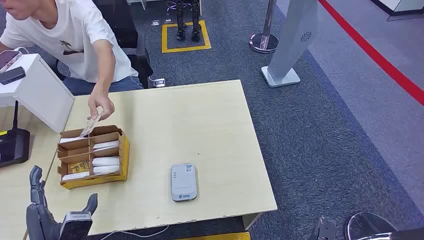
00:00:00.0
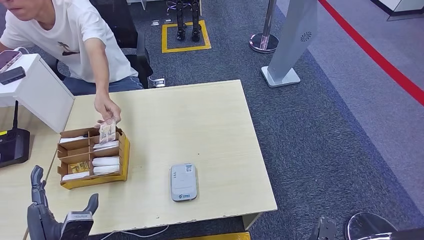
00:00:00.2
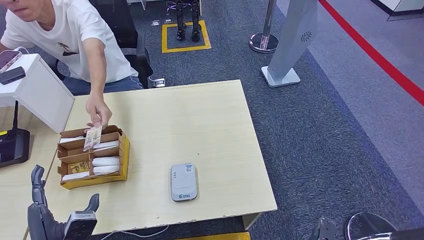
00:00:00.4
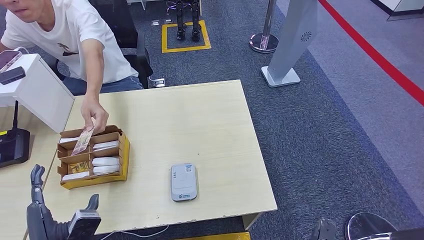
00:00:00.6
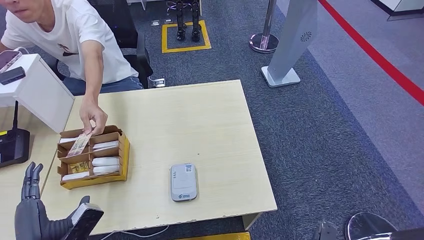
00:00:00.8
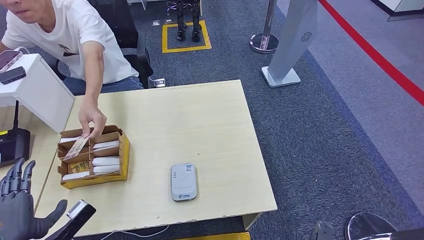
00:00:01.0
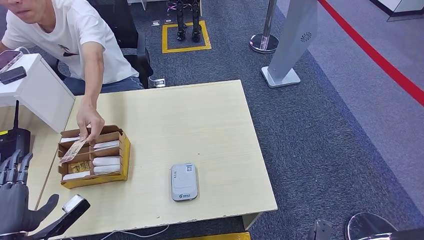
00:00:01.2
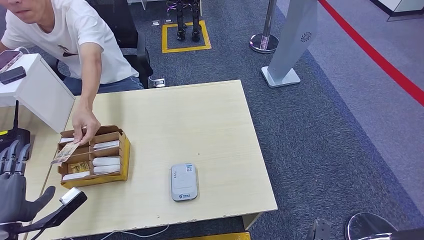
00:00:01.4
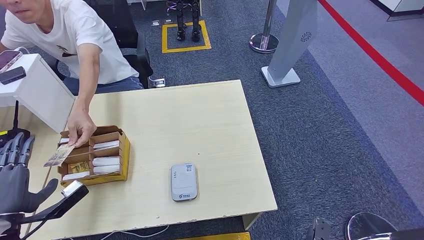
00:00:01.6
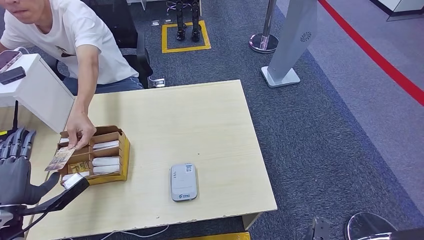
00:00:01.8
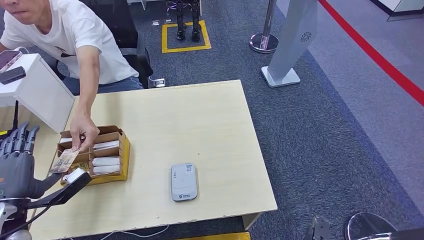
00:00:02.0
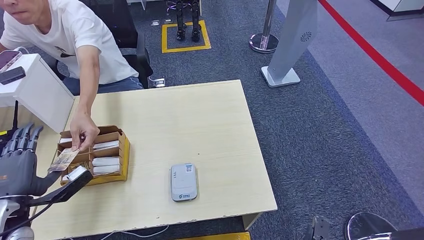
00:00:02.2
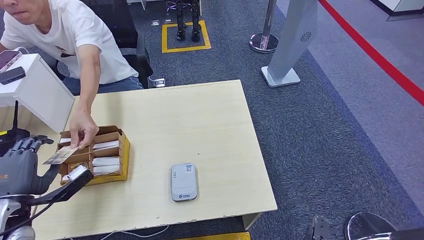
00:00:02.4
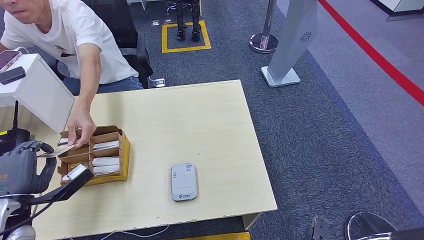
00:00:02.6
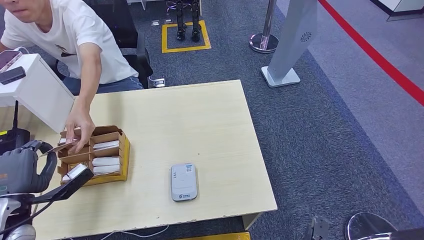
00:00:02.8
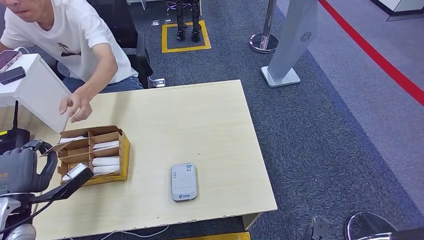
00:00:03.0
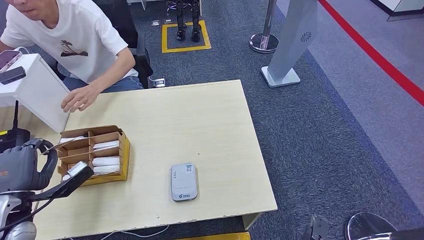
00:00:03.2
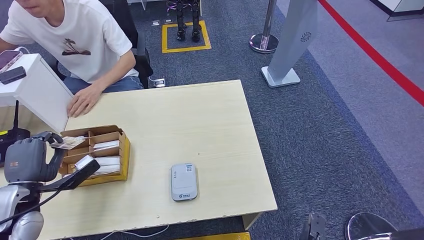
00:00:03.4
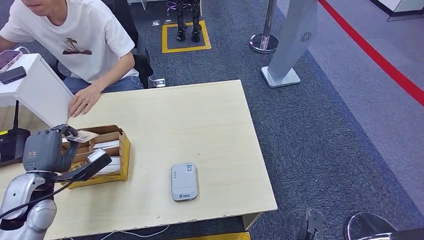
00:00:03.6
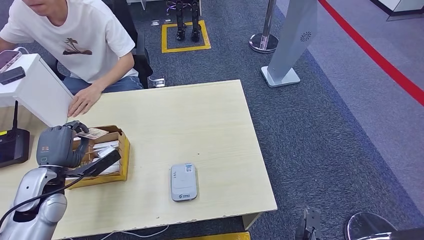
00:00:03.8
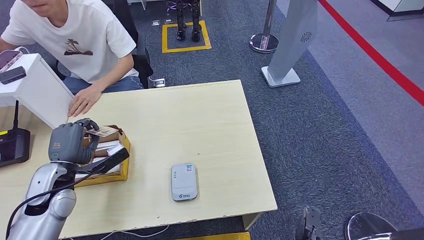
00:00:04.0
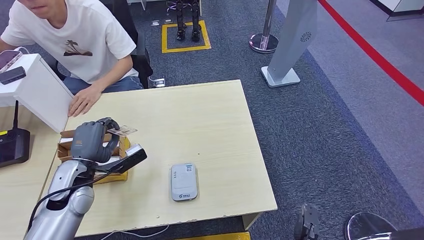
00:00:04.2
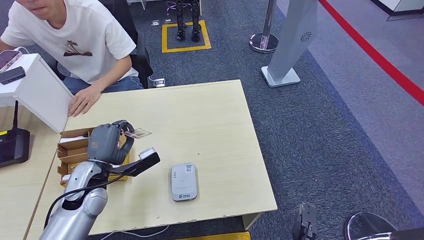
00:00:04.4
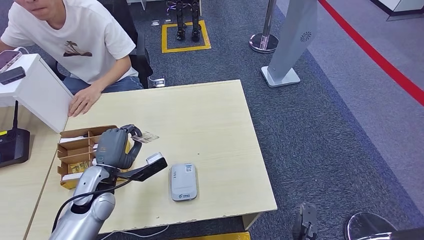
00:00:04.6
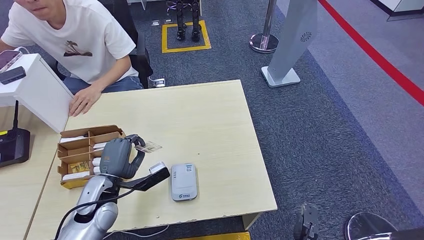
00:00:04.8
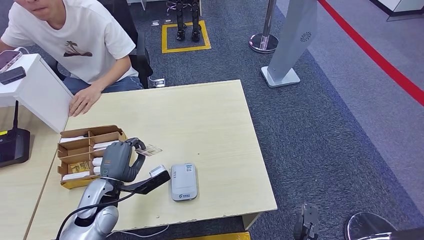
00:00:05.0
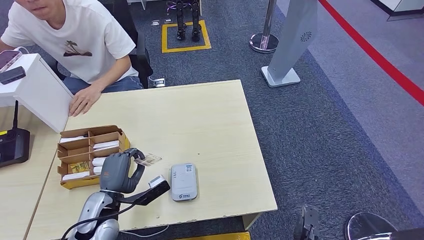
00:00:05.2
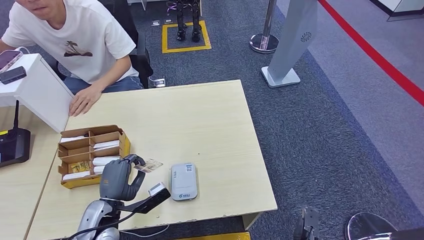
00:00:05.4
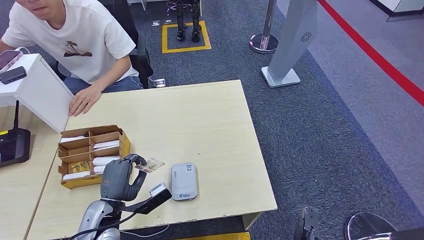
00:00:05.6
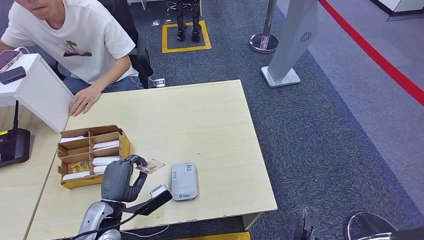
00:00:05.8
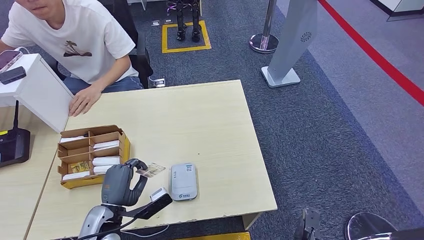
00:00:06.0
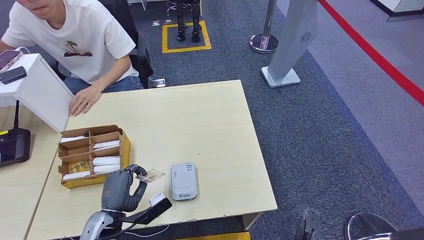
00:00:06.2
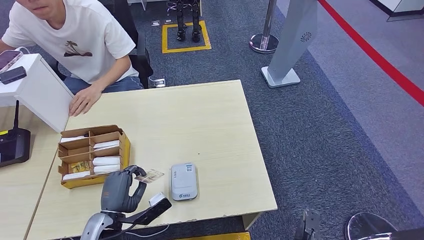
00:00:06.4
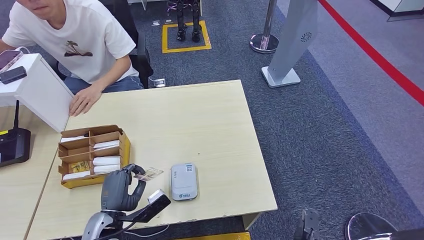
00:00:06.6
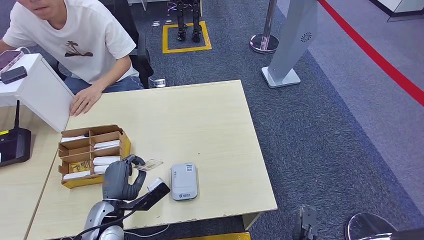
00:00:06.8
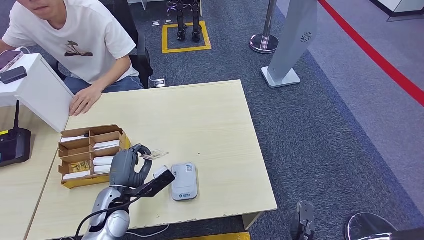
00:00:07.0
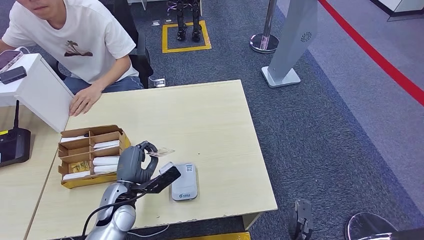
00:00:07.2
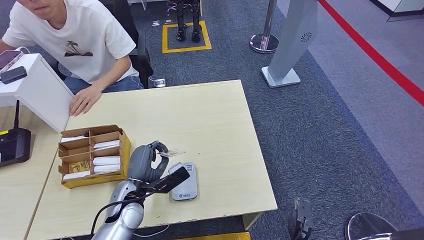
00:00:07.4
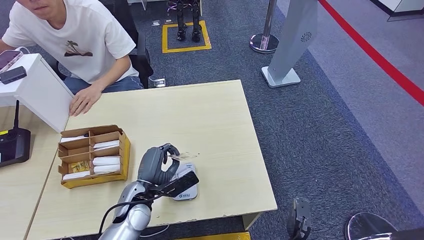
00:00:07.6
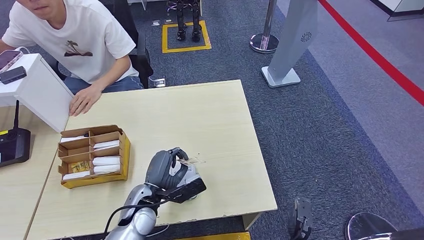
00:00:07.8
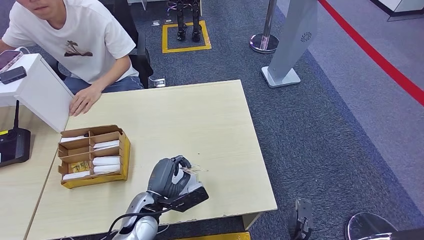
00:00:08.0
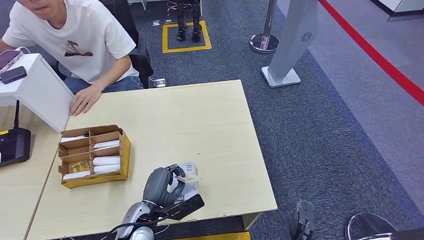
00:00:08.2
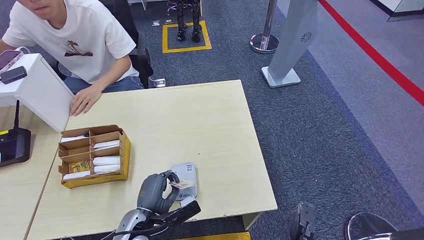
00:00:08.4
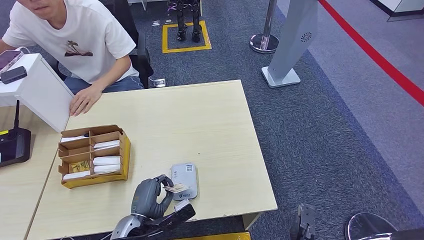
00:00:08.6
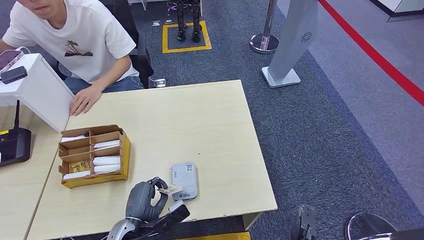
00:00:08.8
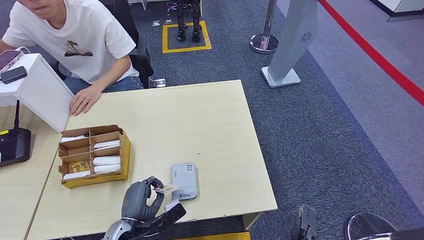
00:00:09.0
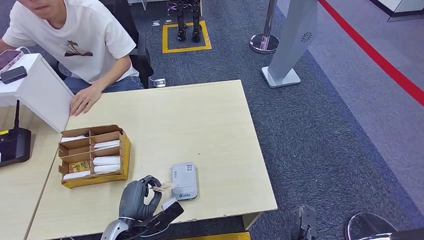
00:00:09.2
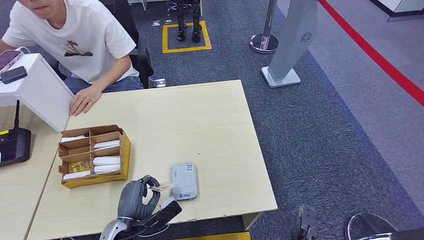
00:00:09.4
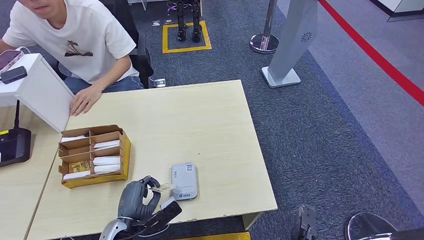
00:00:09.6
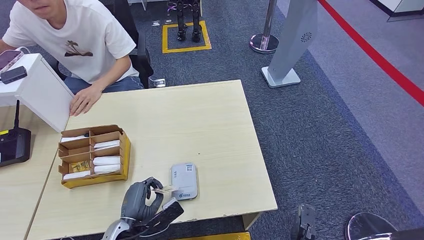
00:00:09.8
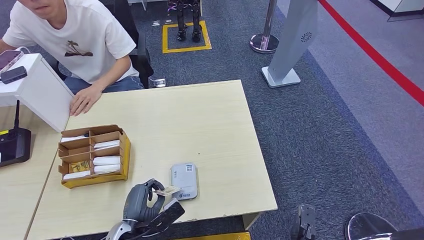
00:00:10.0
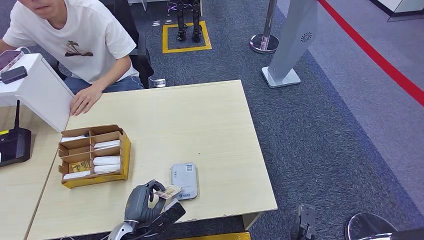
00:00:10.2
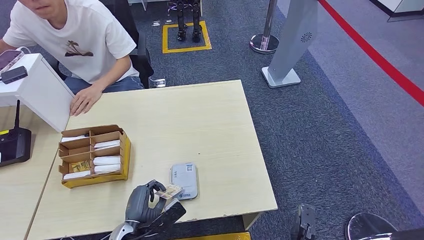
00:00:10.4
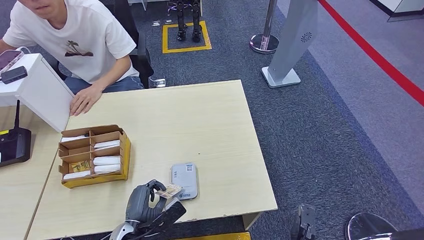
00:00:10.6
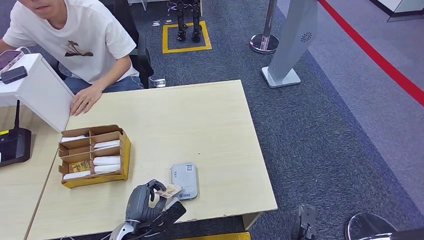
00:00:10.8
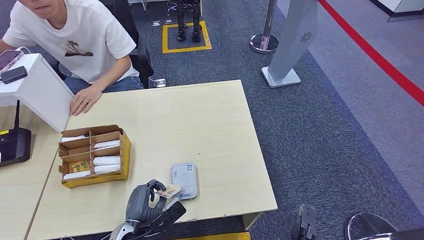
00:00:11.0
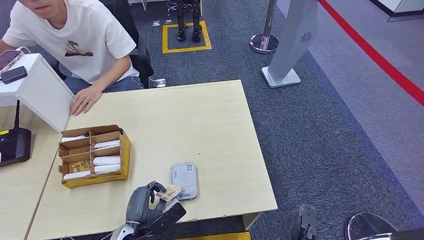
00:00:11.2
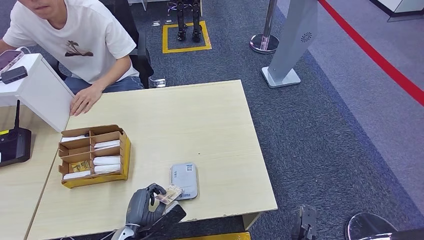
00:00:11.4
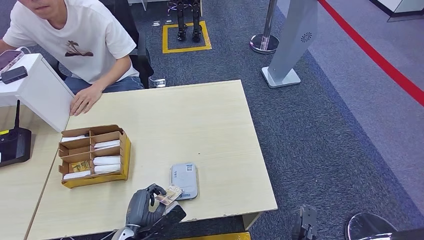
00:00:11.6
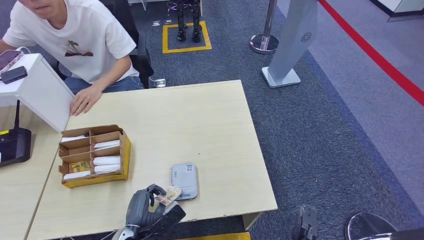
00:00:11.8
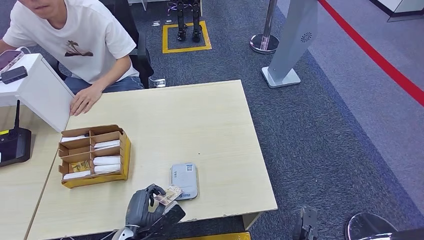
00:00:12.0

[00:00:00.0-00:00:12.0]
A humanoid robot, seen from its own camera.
Step, 00:00:00.0 to 00:00:03.8: Take the ID card from the person's hand.
Step, 00:00:04.2 to 00:00:10.4: Place the ID card on the card reader.
00:00:01.6 to 00:00:03.0: The hands make only small movements.
00:00:03.0 to 00:00:04.4: The left hand heads to the right and forward, covering about 15 cm.
00:00:04.4 to 00:00:06.0: The left hand shifts roughly 10 cm backward and downward.
00:00:06.0 to 00:00:07.6: The left hand heads to the right and forward, covering about 10 cm.
00:00:07.6 to 00:00:09.0: The left hand is displaced backward by approximately 10 cm.
00:00:09.0 to 00:00:10.4: The hands make only small movements.
00:00:10.4 to 00:00:12.0: Neither hand changes place.

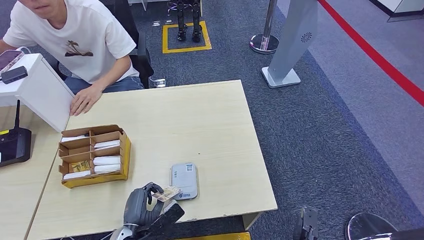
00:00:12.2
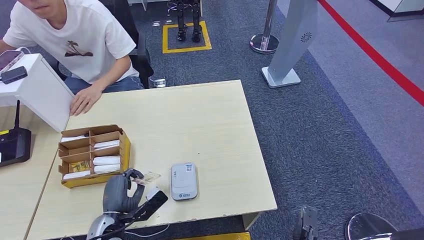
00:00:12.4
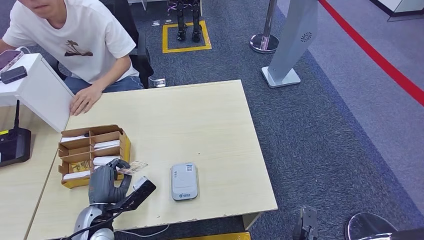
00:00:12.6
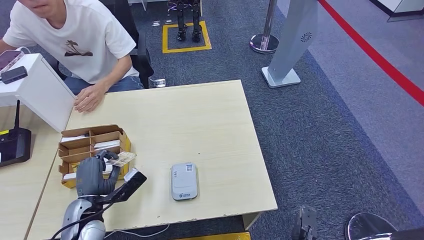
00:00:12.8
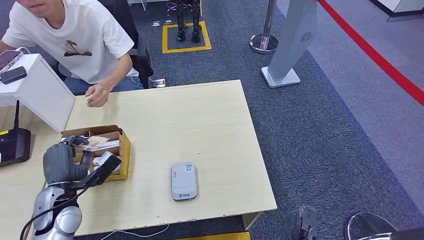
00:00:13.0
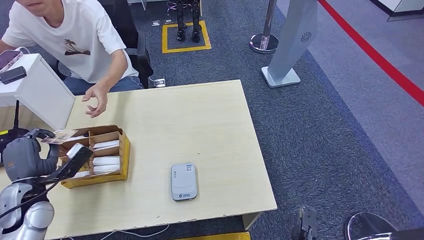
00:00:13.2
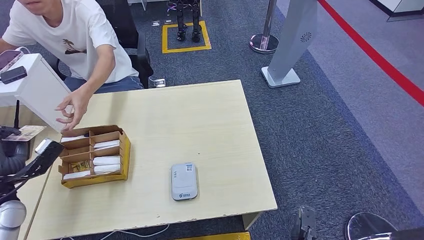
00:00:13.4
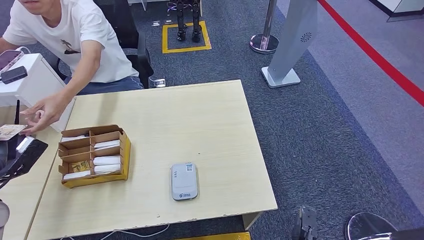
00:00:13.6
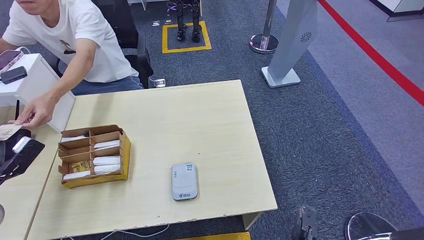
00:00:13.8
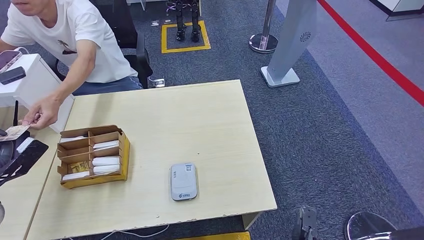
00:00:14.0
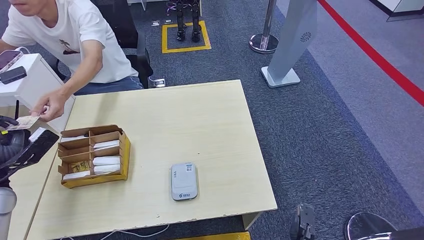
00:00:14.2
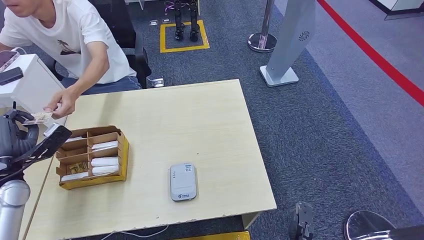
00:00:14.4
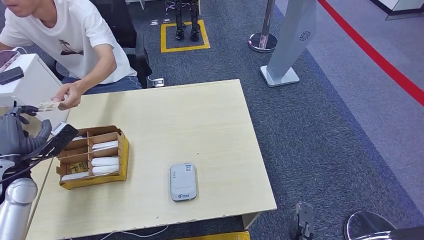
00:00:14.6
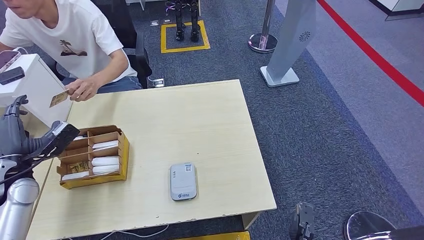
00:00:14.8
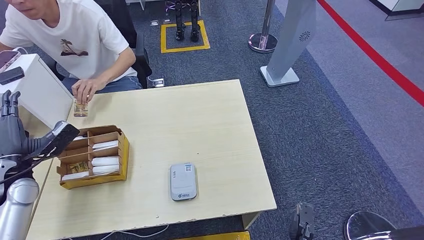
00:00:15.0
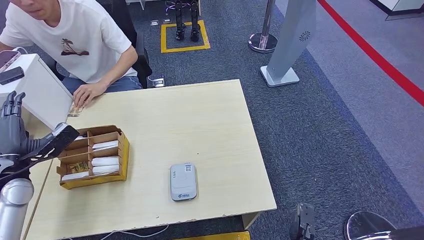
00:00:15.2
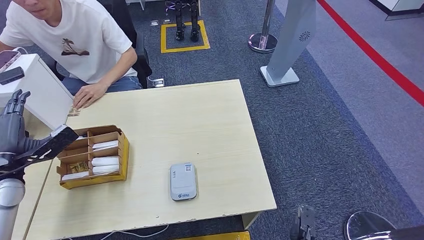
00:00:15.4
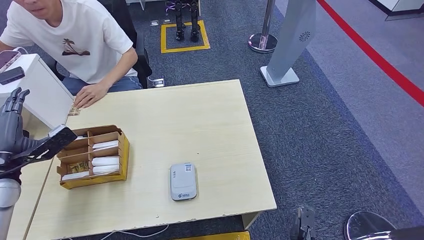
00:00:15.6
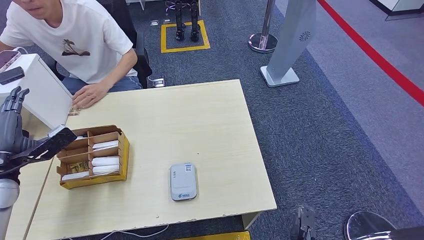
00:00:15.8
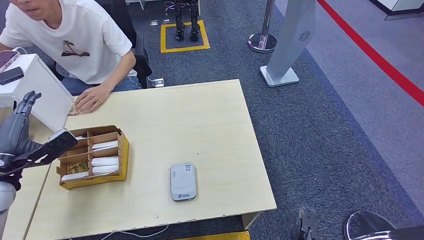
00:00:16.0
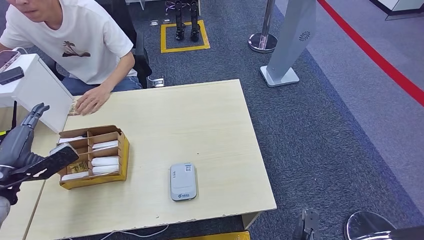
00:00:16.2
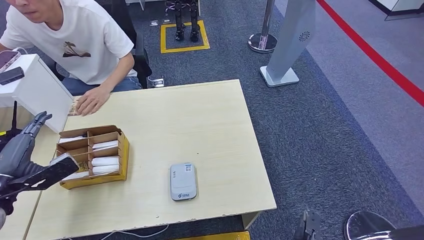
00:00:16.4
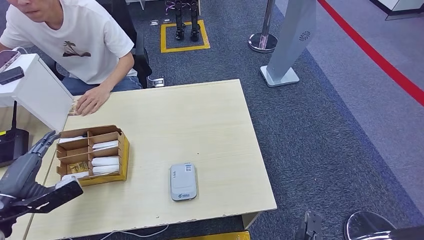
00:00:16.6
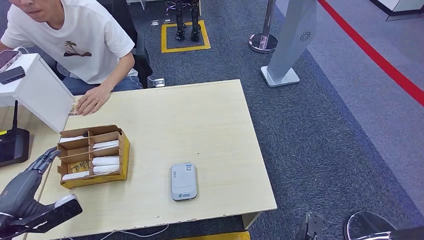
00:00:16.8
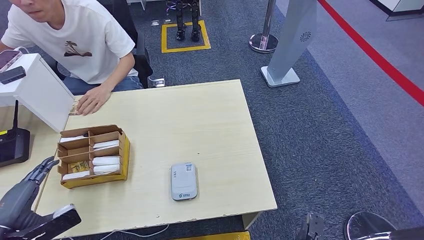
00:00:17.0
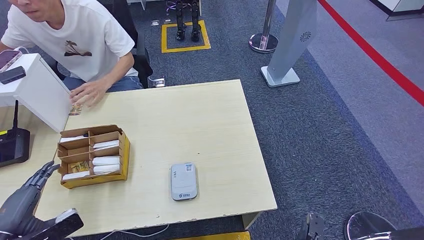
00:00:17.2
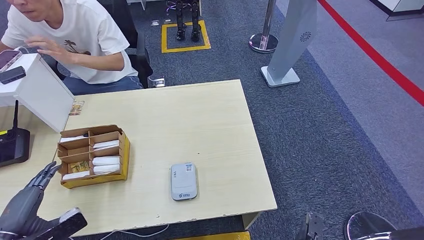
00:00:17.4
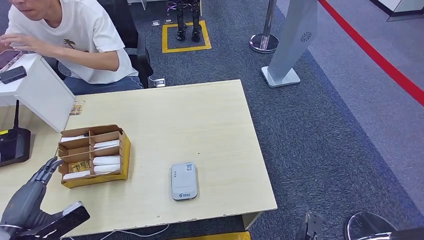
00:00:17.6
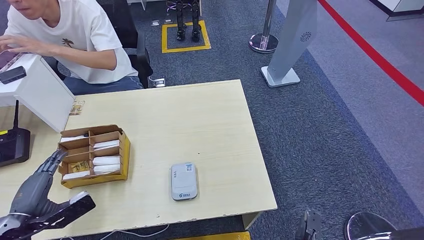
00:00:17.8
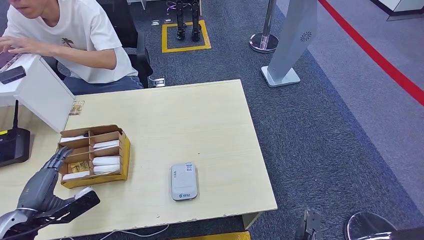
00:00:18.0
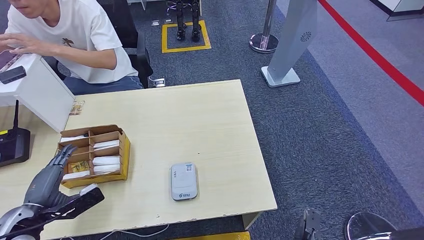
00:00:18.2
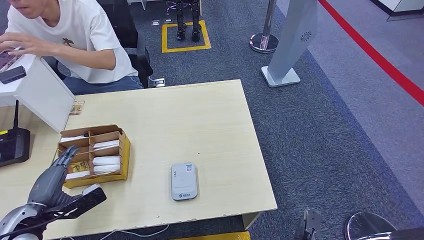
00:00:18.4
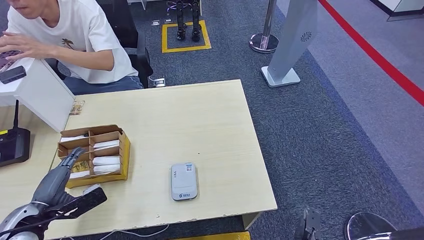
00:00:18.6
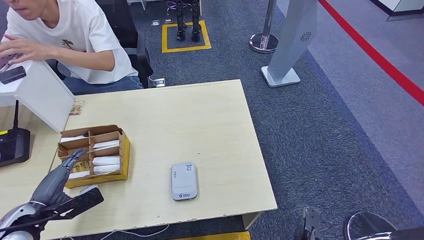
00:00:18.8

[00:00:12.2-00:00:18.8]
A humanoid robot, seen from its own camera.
Step, 00:00:12.2 to 00:00:15.0: Hand the ID card to the person.
00:00:12.2 to 00:00:13.8: The left hand moves to the left and upward, roughly 35 cm.
00:00:13.8 to 00:00:15.4: The left hand changes place by approximately 5 cm.
00:00:15.4 to 00:00:17.2: The left hand goes about 15 cm backward.
00:00:17.2 to 00:00:18.8: The left hand heads forward, covering roughly 5 cm.
